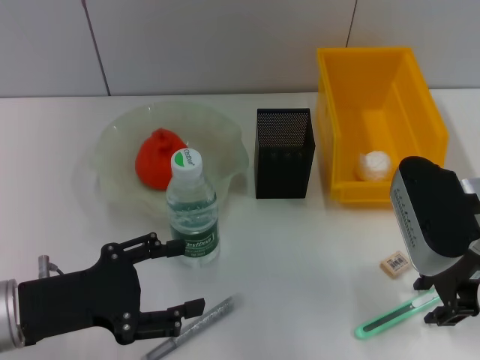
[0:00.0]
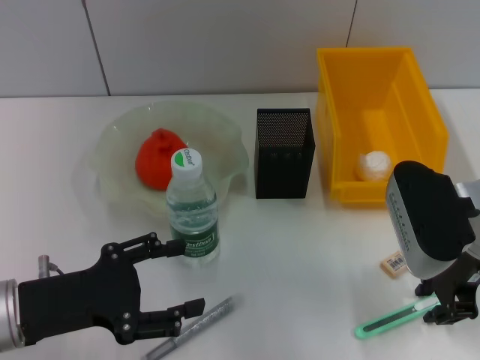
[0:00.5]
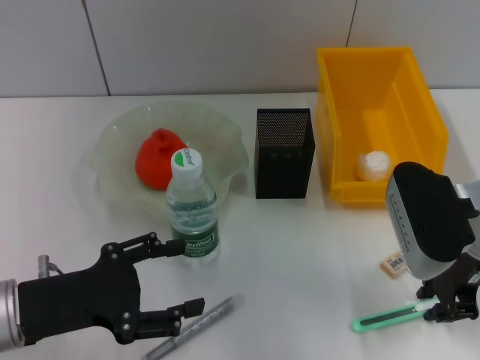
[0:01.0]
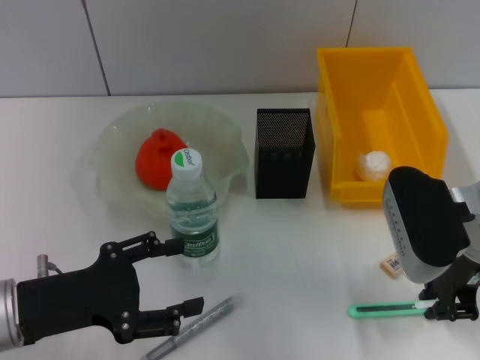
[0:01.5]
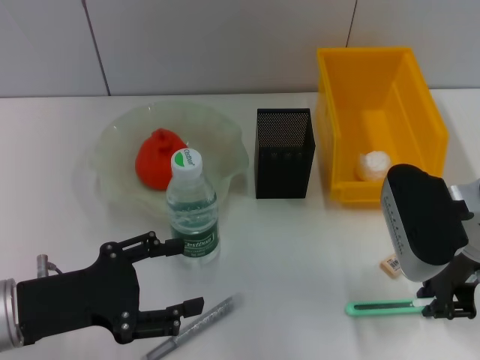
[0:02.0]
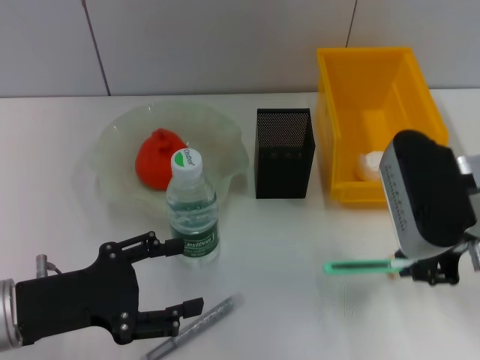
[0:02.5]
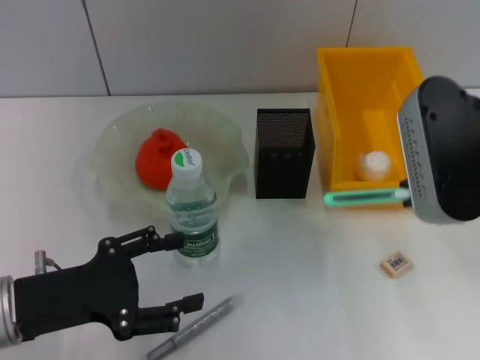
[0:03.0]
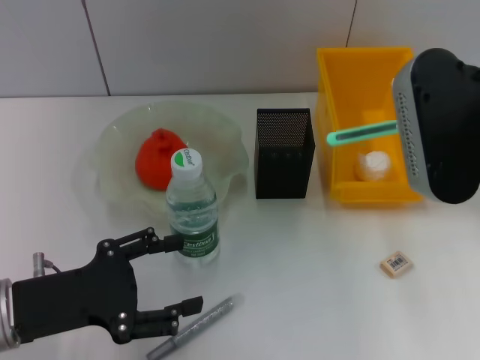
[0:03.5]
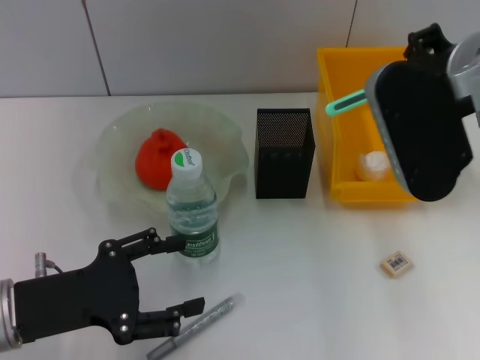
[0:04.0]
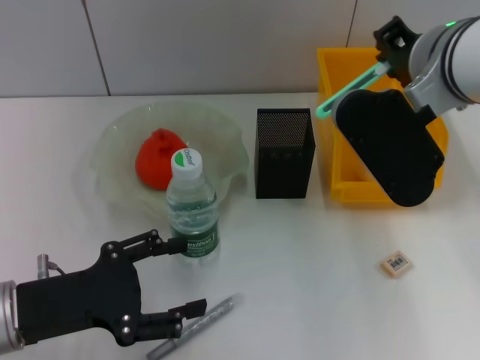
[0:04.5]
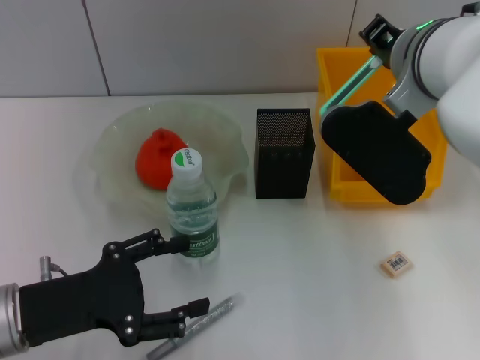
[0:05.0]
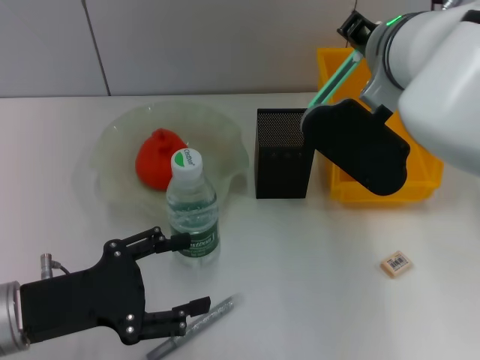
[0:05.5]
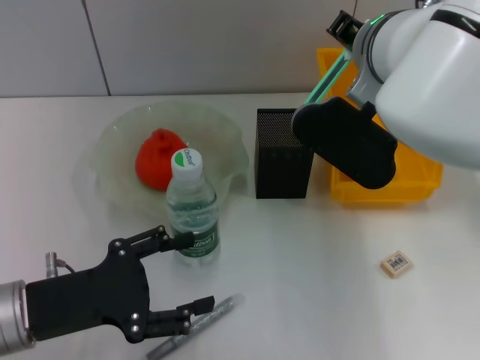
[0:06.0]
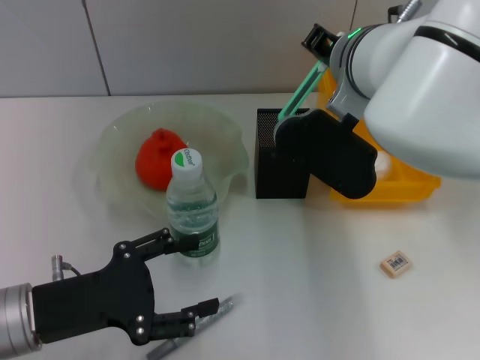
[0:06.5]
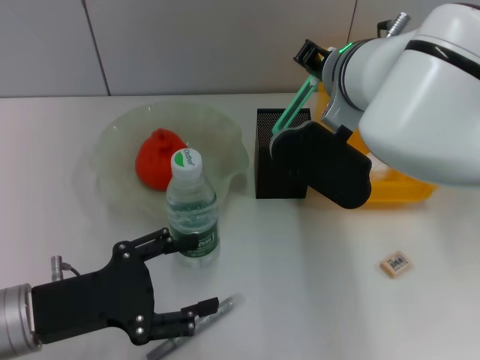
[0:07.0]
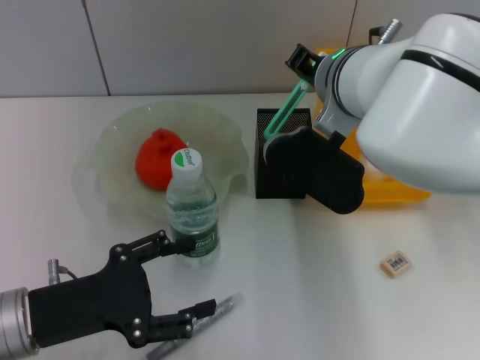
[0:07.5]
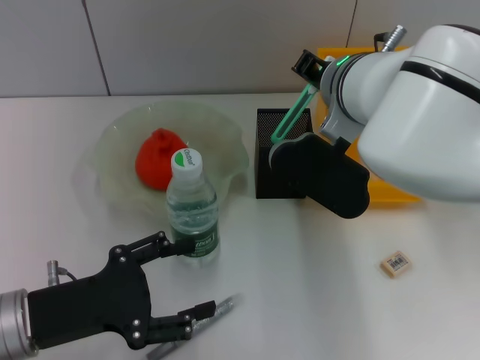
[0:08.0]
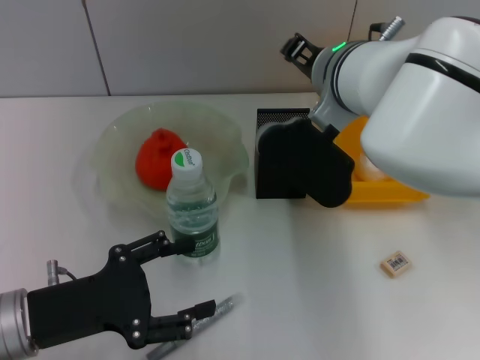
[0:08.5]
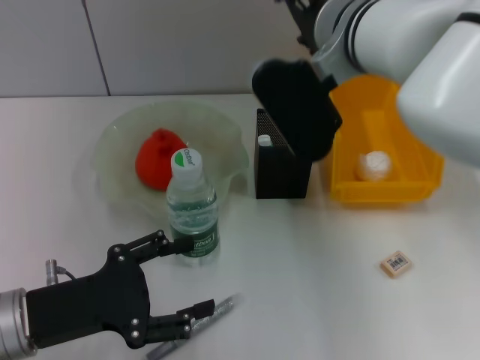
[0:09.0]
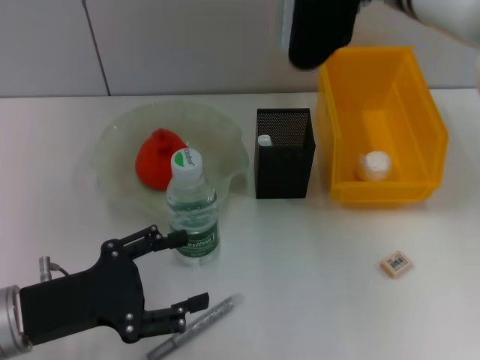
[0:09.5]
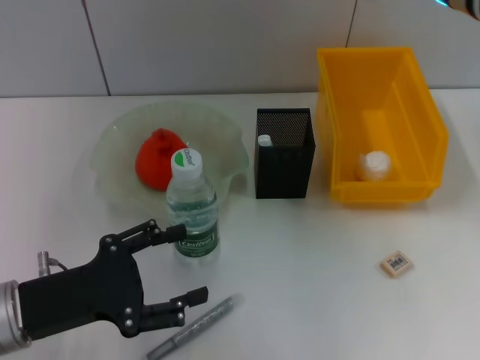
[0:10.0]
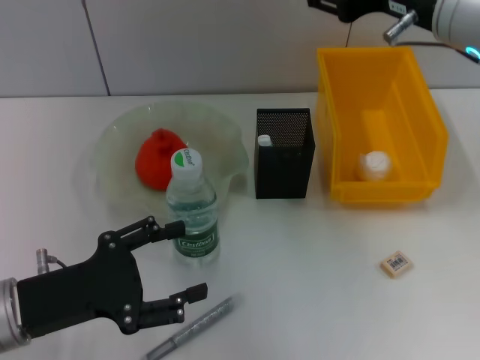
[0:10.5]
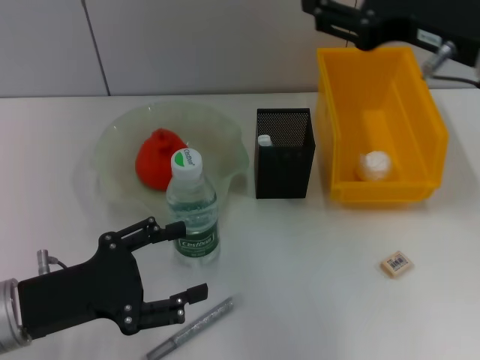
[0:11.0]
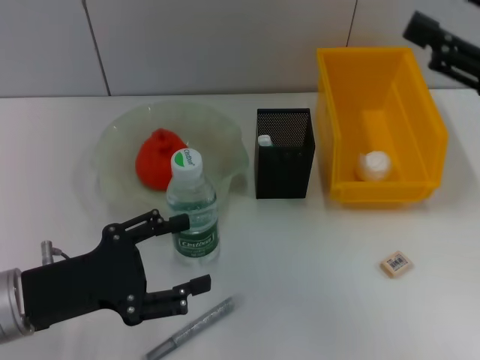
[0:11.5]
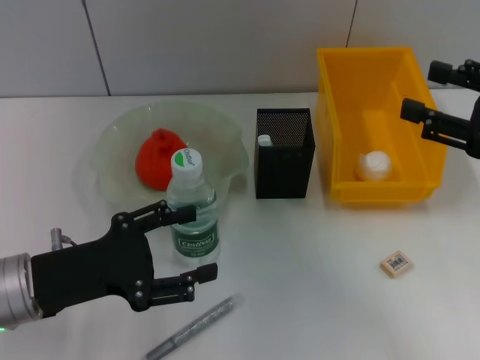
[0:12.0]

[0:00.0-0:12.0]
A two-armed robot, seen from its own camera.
Step, 1.5 to 8.5 s: Place the blue utility knife into the pen holder with the right hand.
0.0 to 2.0 s: The right gripper closes its fingers.
2.0 to 4.0 s: The right gripper shifts some 10 cm upward.
4.0 to 6.0 s: The right gripper goes about 10 cm to the left and forward.
6.0 to 8.0 s: There are only small adjustments of the grippers.
8.0 to 10.0 s: The right gripper is displaced upward and to the right by about 10 cm, and opens.
10.0 to 12.0 s: The right gripper shifts about 20 cm to the right, backward and downward.

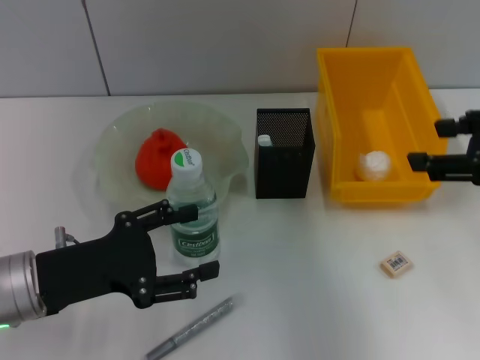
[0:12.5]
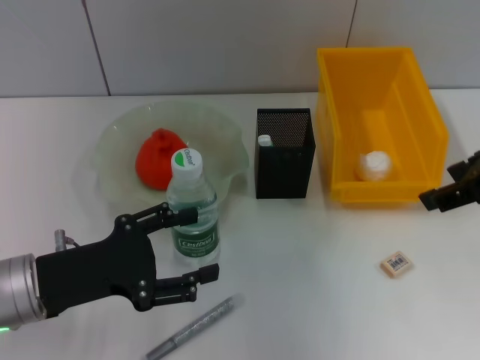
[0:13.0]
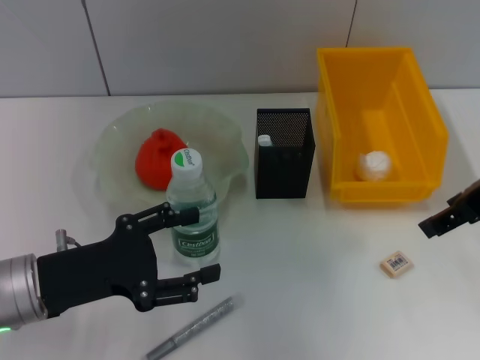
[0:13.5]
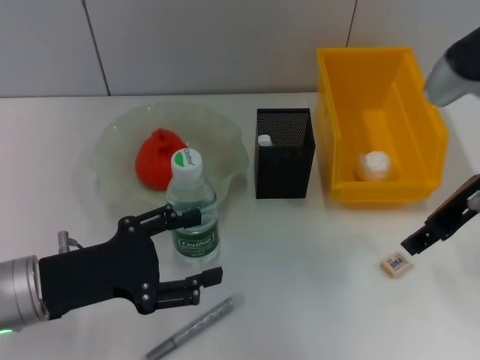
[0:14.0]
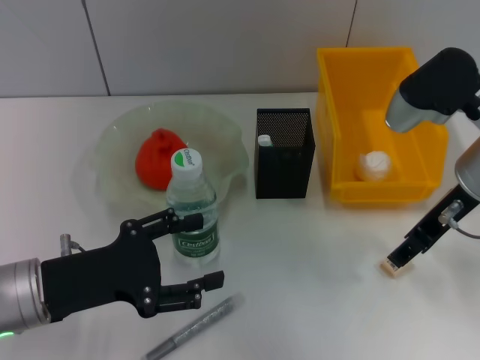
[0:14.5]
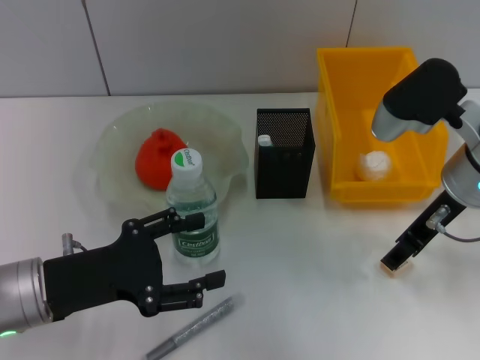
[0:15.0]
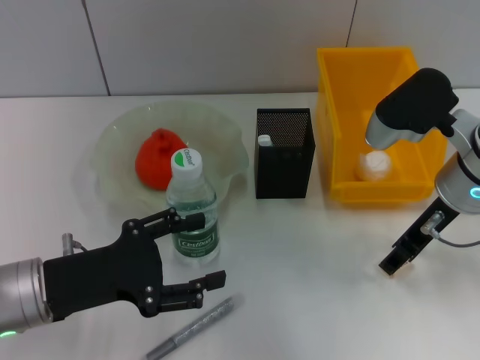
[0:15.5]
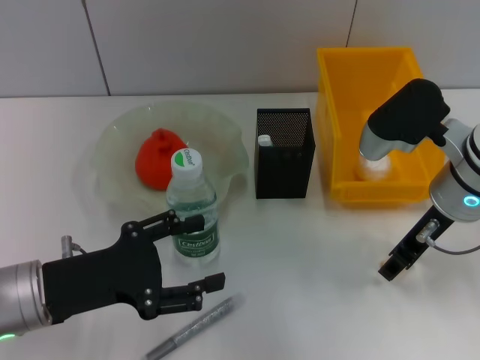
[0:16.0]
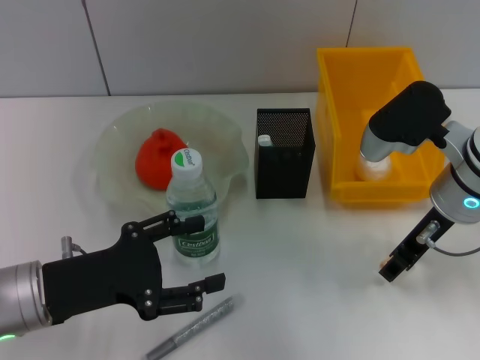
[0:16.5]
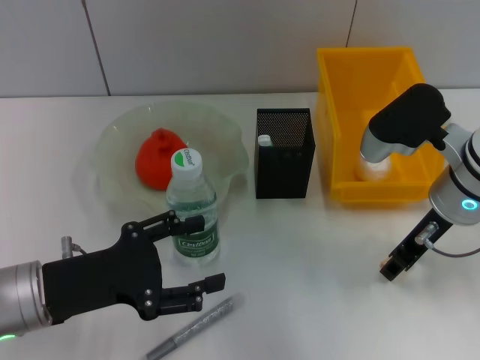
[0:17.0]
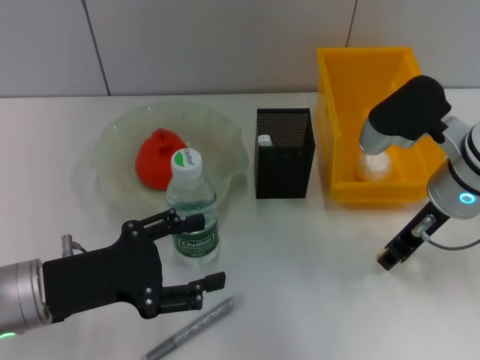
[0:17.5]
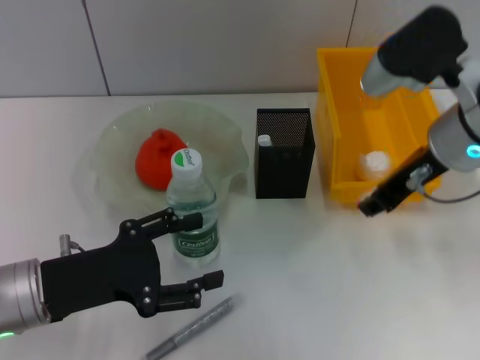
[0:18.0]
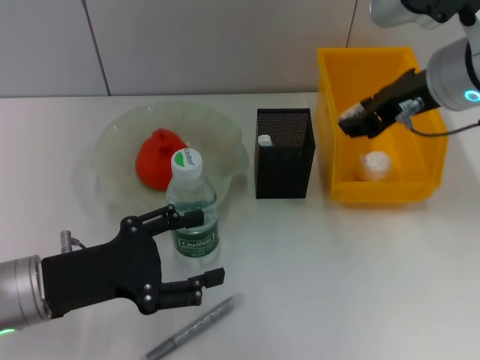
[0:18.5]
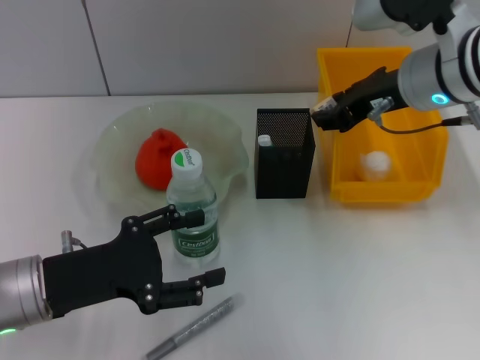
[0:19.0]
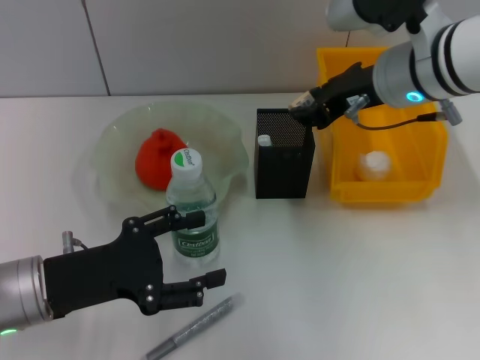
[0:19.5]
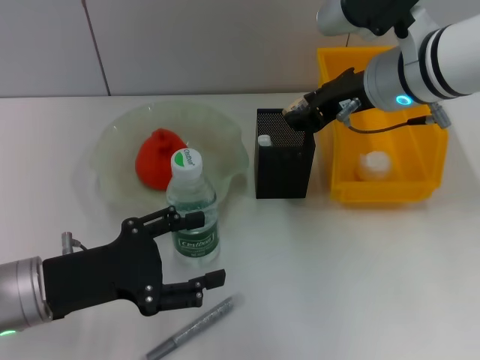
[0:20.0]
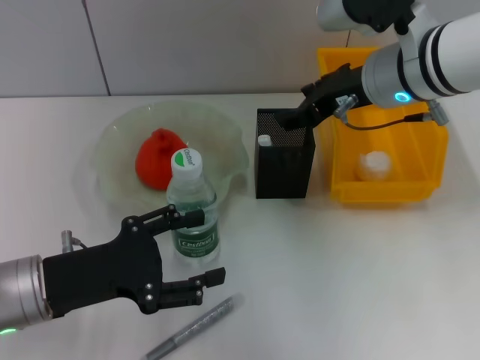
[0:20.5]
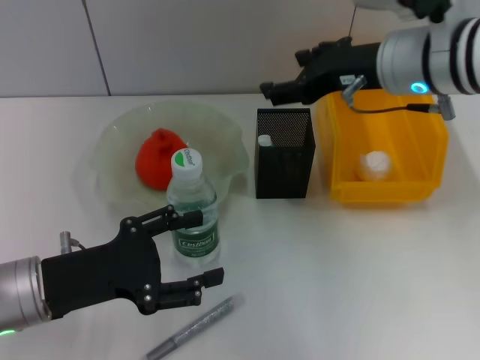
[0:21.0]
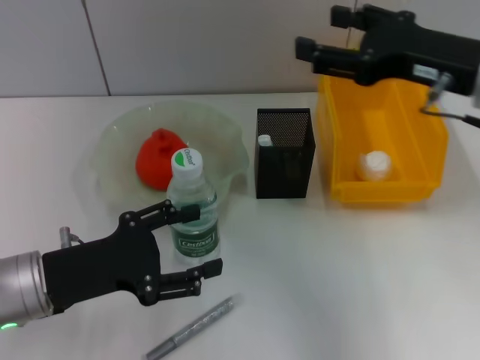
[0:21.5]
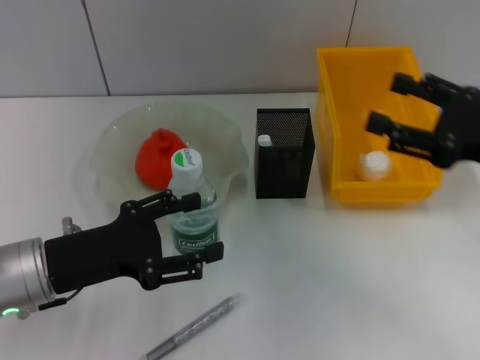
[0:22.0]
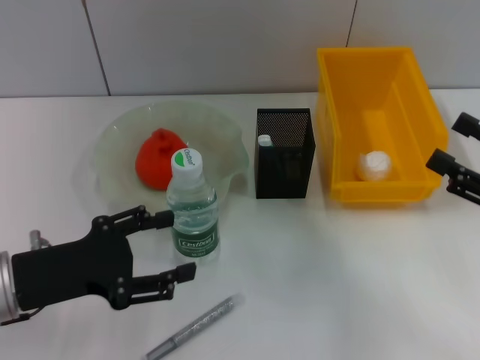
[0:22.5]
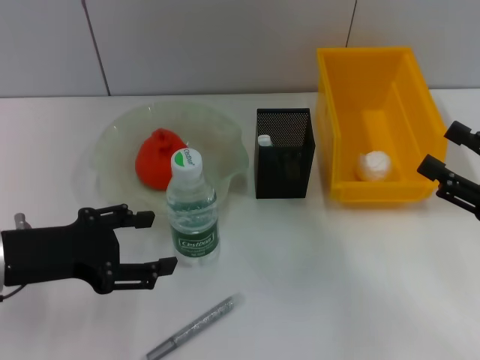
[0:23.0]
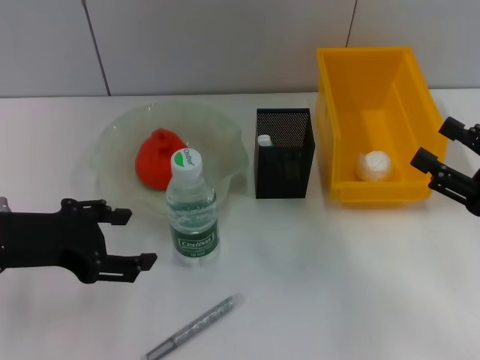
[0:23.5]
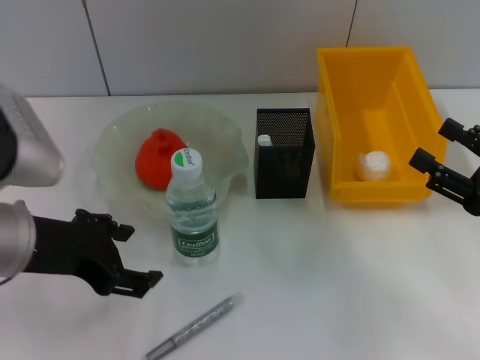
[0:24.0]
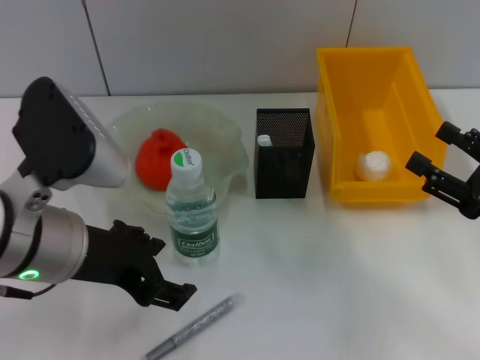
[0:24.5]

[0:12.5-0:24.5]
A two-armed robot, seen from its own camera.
Step, 12.5 to 17.0 s: Grab the eraser with the right hand.
Step, 17.5 to 20.5 s: Put the eraser into the pen holder with the right hand.
12.5 to 14.5 s: The right gripper shifts approximately 10 cm to the left, forward and downward.
14.5 to 16.5 s: The grippers stay close to where they were, moving slightly.
16.5 to 18.5 s: The right gripper travels upward by about 10 cm.
18.5 to 20.5 s: The right gripper changes place by about 5 cm.
20.5 to 22.5 s: The right gripper shifts about 25 cm to the right, backward and downward.
22.5 to 24.5 s: The left gripper is displaced to the right and upward by some 10 cm.

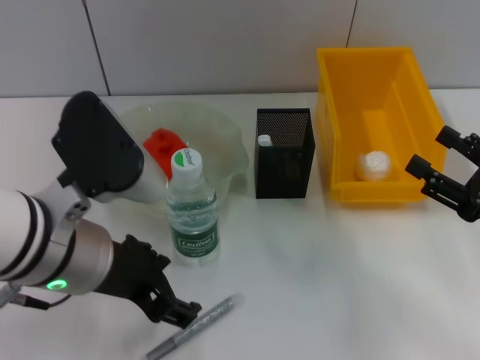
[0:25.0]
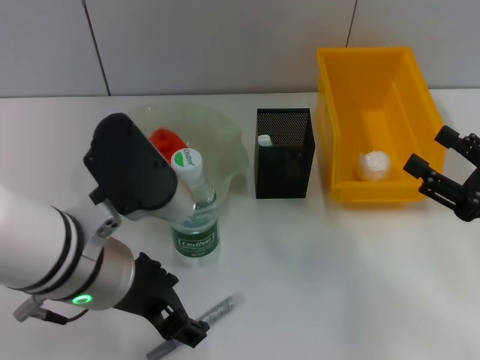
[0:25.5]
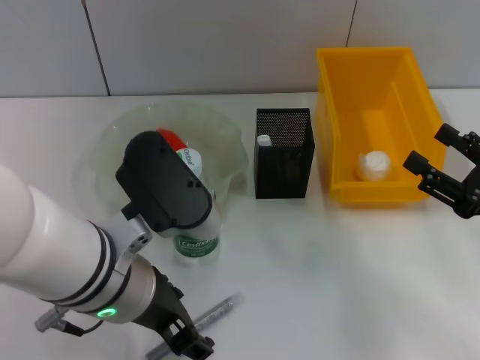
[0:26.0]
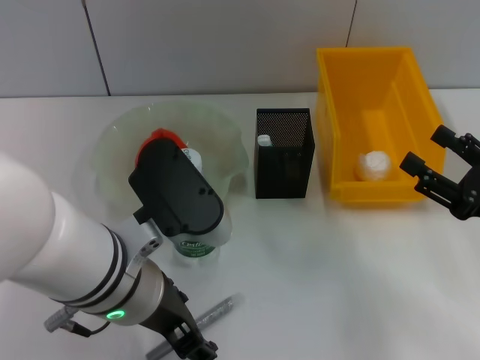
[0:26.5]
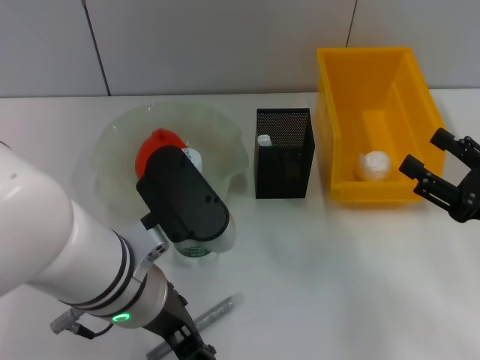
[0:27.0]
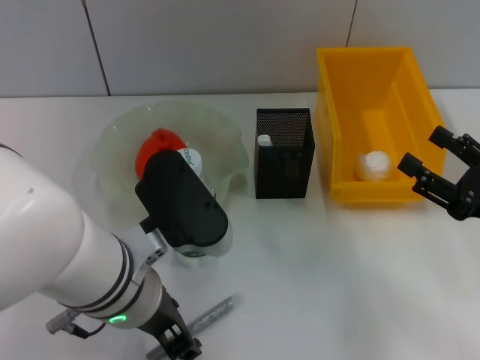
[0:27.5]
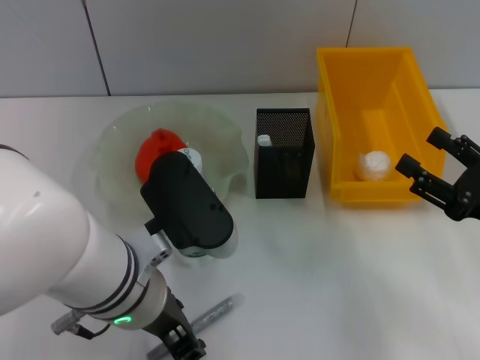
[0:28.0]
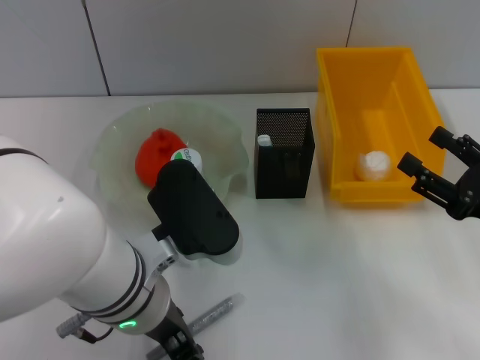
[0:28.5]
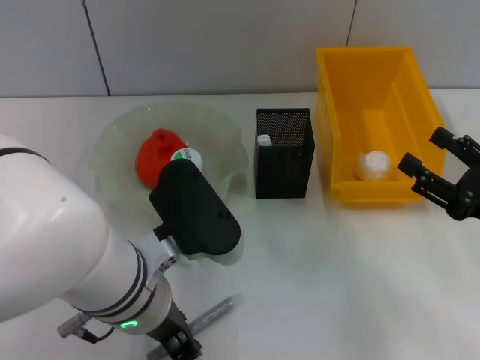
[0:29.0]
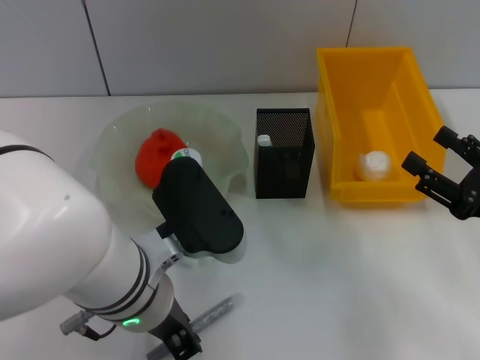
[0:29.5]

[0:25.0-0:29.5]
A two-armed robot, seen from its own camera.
25.0 to 27.0 s: The left gripper ends up some 5 cm from where it was.
27.0 to 29.5 s: The left gripper closes its fingers.
